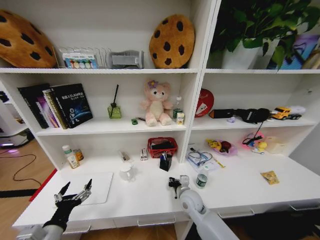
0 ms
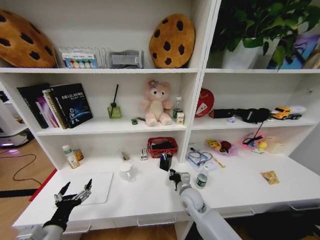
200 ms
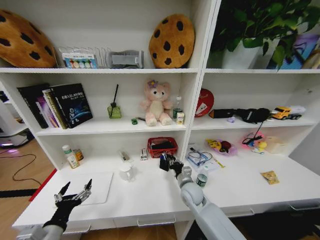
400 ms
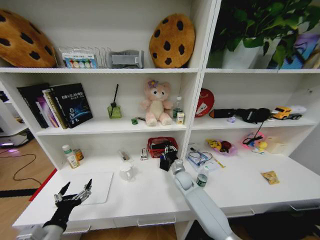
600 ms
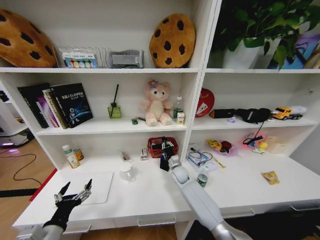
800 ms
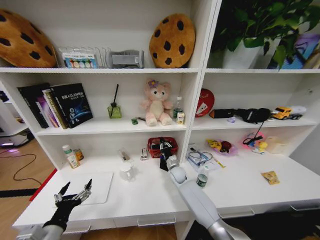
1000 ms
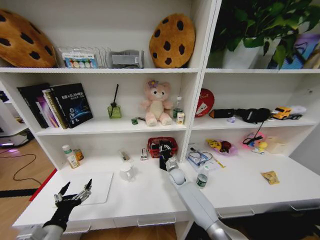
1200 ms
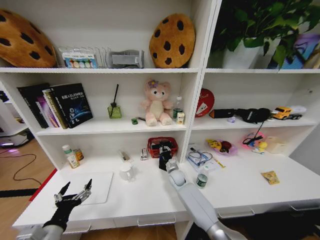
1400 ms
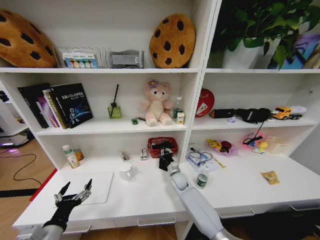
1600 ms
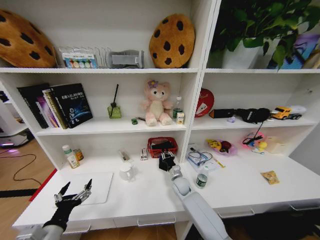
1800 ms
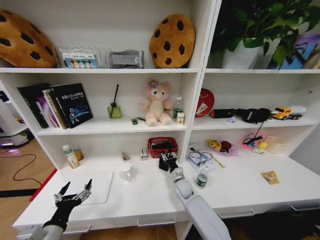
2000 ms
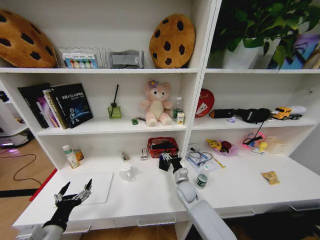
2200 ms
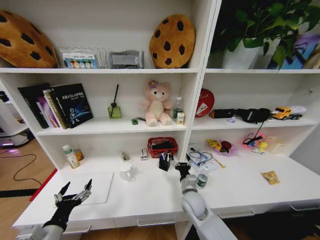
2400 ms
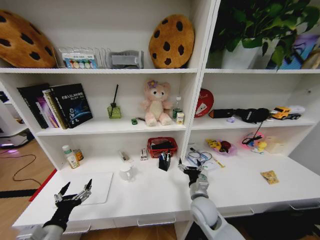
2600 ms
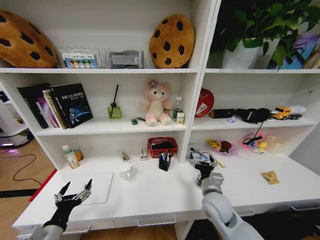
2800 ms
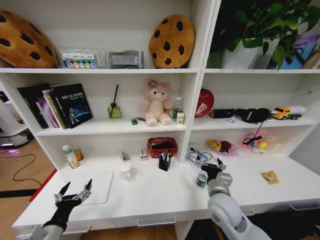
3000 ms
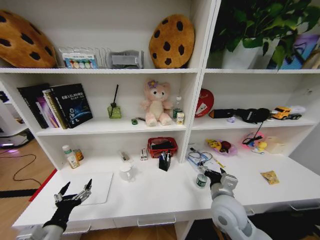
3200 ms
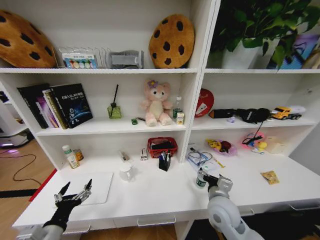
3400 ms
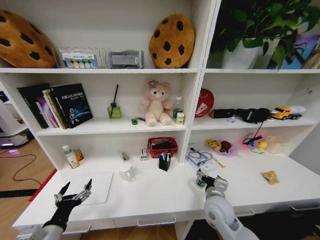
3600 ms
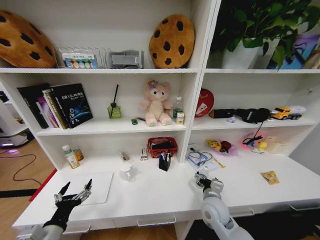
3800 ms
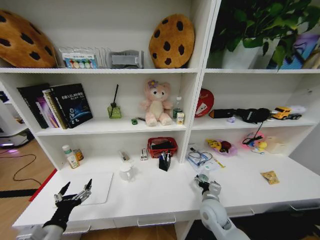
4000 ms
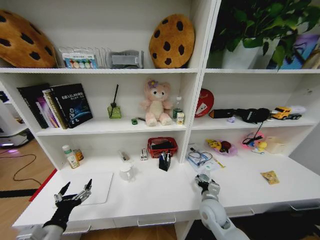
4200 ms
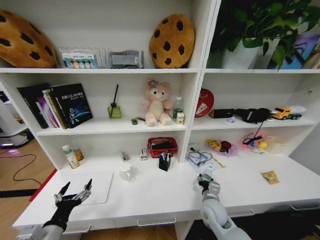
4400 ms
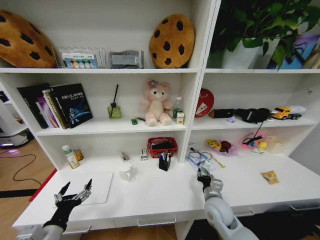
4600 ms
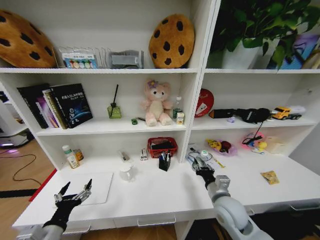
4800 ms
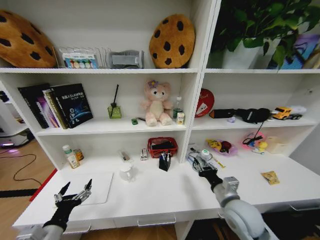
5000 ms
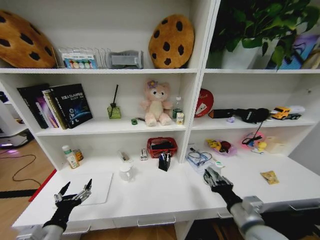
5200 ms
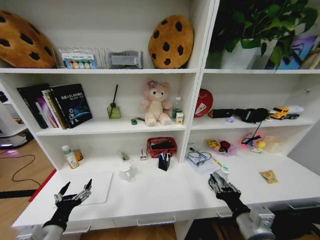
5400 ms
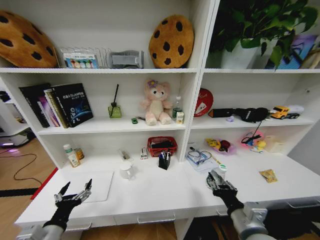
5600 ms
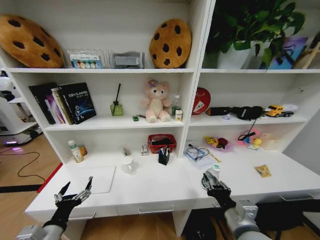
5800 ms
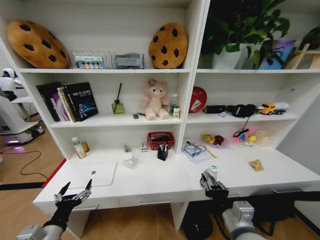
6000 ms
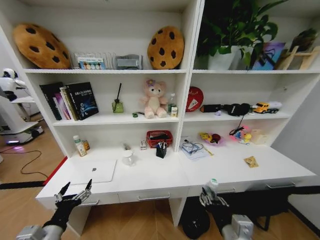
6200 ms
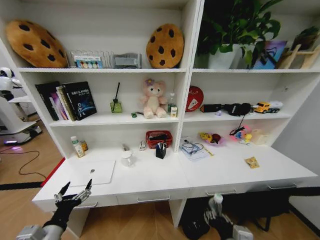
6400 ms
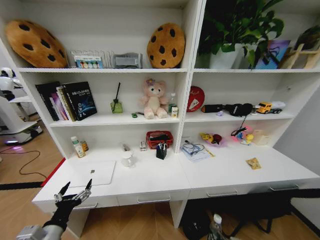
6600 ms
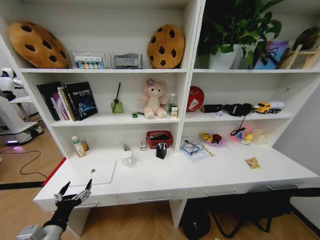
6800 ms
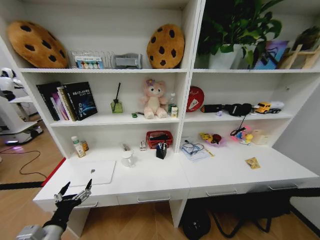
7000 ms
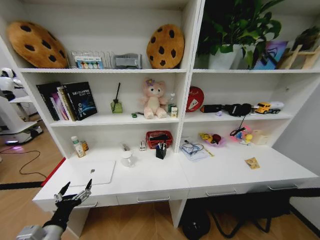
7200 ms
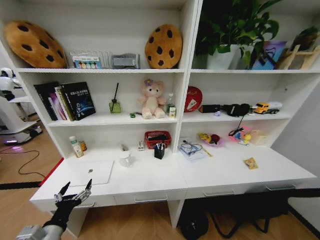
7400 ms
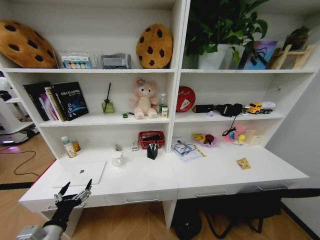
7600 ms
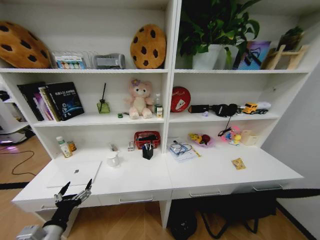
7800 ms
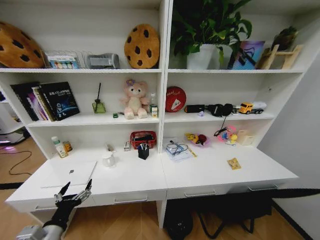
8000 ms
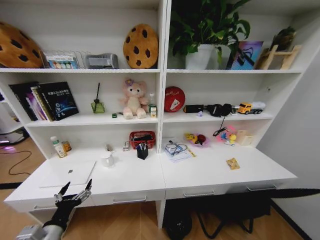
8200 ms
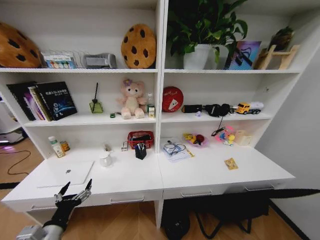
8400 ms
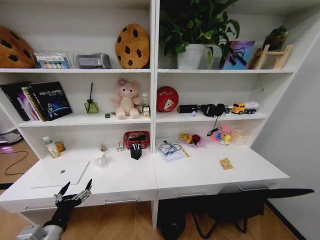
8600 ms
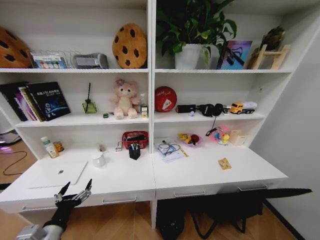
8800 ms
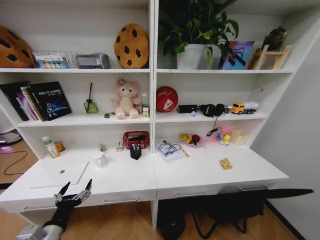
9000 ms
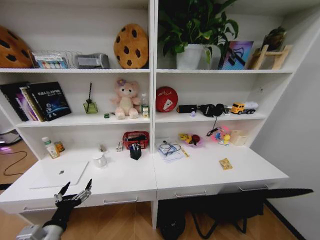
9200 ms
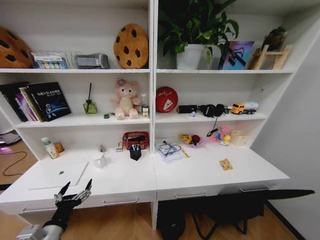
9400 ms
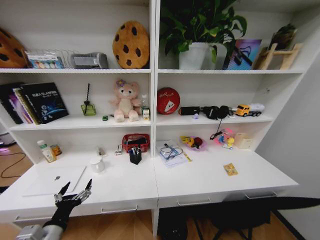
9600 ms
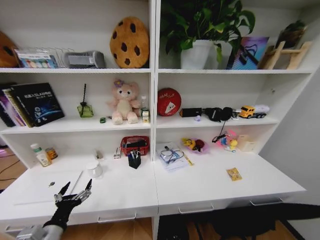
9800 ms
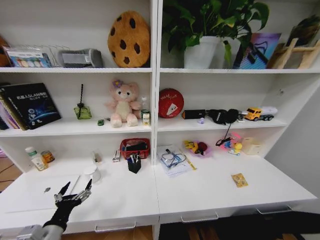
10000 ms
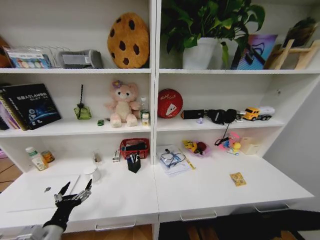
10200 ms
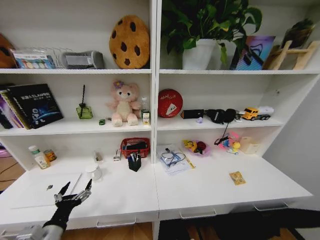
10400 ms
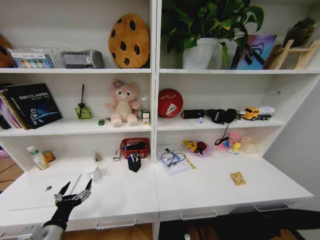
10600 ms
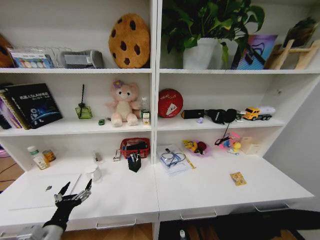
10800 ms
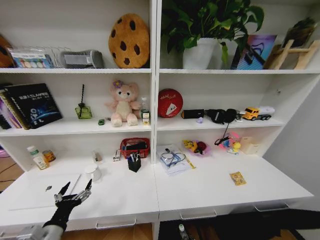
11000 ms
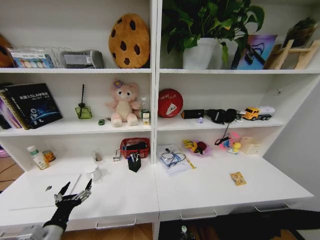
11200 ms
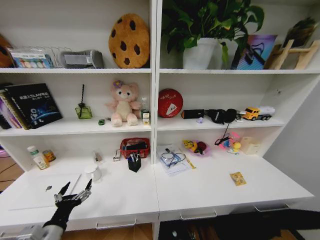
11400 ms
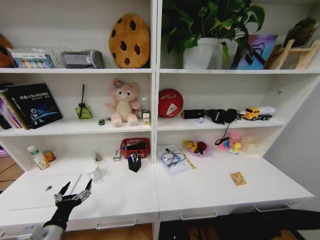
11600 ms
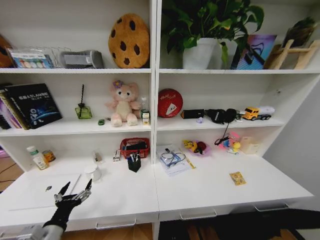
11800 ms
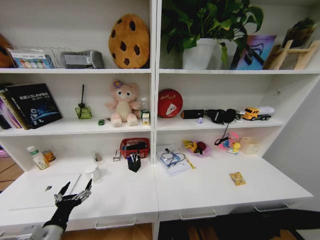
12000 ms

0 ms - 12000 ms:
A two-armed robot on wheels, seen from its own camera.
Task of the whole recording: Organize the objects on the table.
0 ms - 1600 ms: The right gripper is displaced forward and downward by some 15 cm.
1600 ms - 3000 ms: The right gripper is displaced backward, upward and to the right by roughly 25 cm, and opens up.
3000 ms - 4400 ms: The right gripper is displaced downward by some 10 cm, and closes its fingers.
4400 ms - 6000 ms: The right gripper is displaced backward and upward by roughly 20 cm, and closes up.
6000 ms - 7600 ms: The right gripper heads downward and backward, covering about 30 cm.
9000 ms - 10400 ms: The right gripper shifts some 10 cm downward.
10400 ms - 12000 ms: The right gripper opens its fingers.

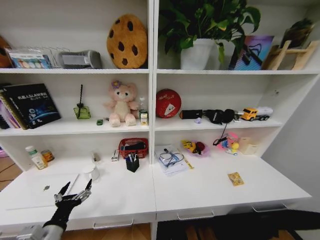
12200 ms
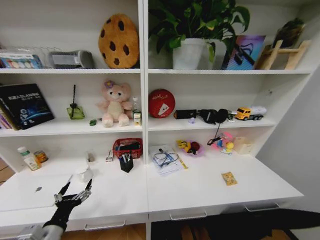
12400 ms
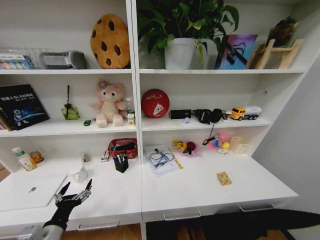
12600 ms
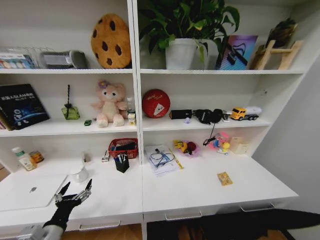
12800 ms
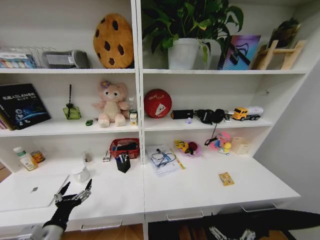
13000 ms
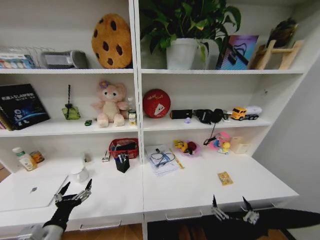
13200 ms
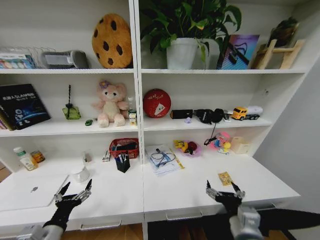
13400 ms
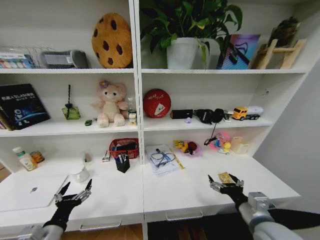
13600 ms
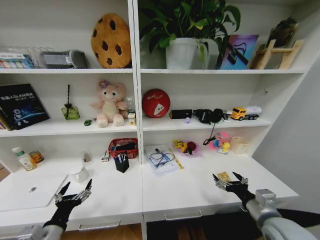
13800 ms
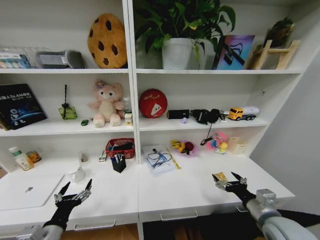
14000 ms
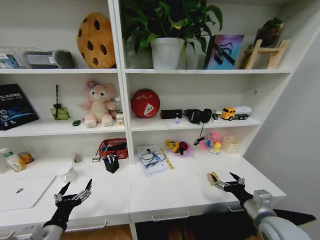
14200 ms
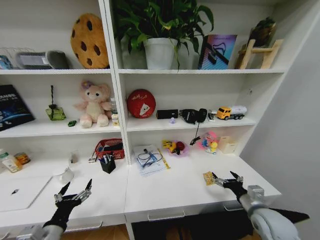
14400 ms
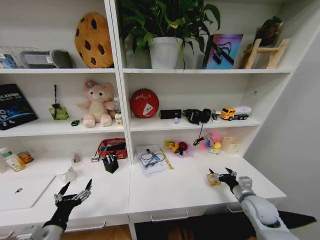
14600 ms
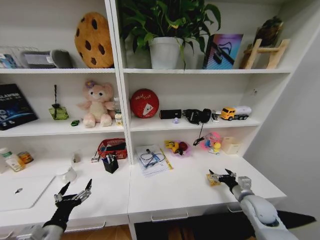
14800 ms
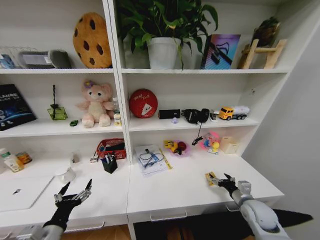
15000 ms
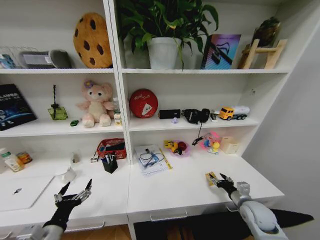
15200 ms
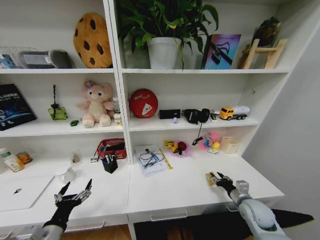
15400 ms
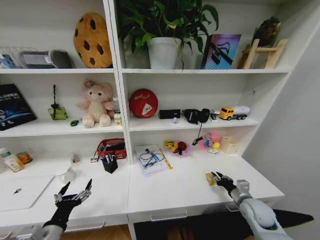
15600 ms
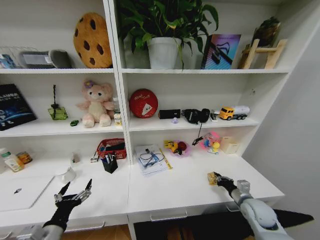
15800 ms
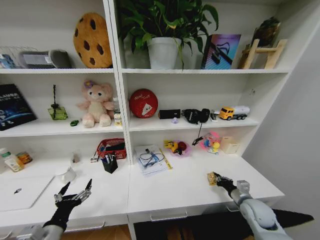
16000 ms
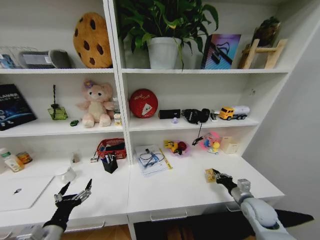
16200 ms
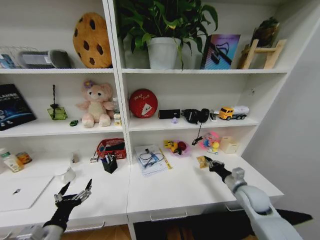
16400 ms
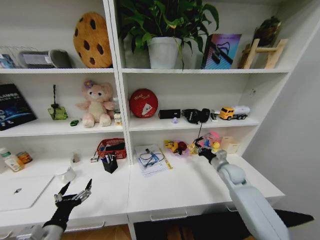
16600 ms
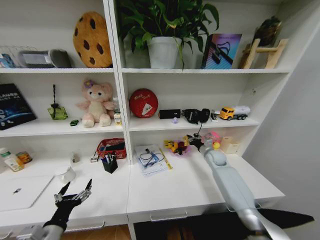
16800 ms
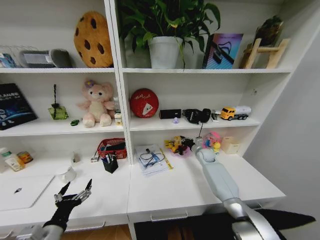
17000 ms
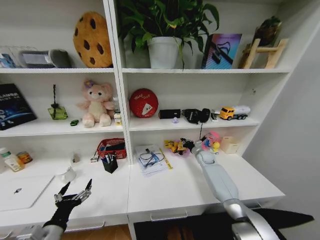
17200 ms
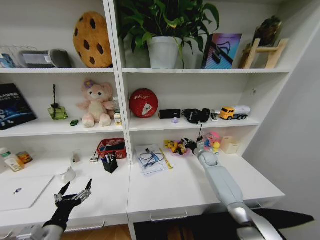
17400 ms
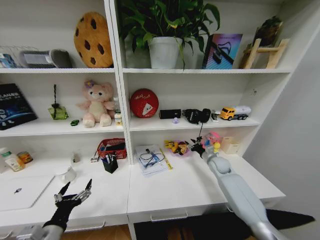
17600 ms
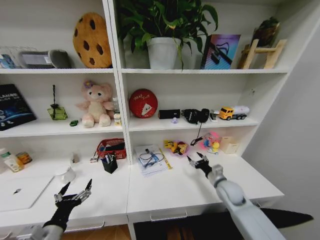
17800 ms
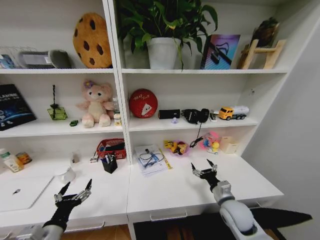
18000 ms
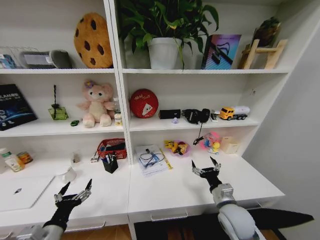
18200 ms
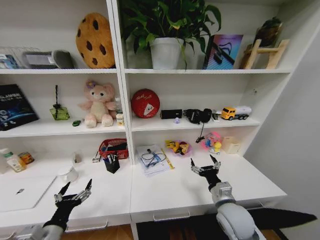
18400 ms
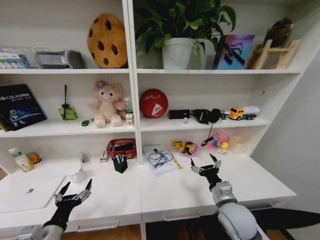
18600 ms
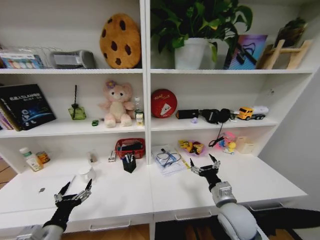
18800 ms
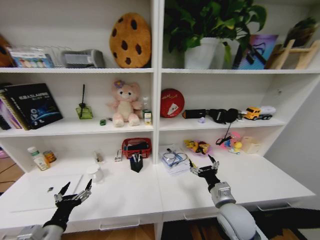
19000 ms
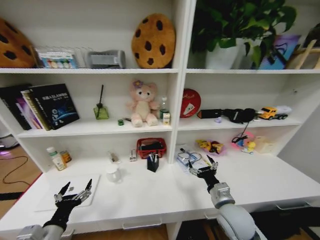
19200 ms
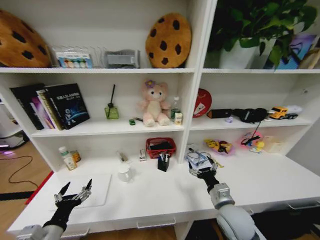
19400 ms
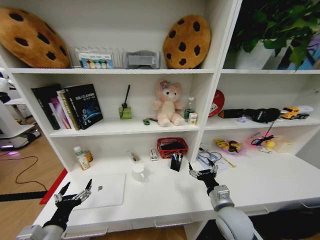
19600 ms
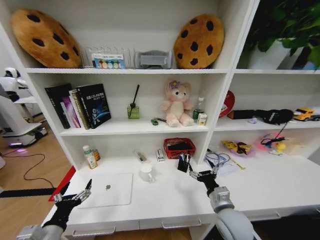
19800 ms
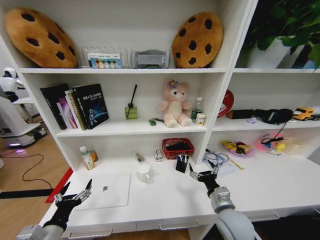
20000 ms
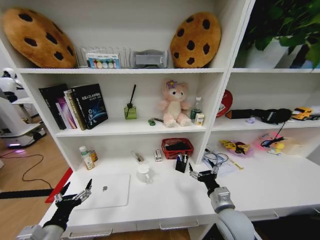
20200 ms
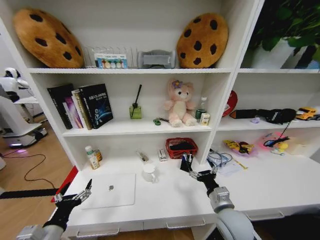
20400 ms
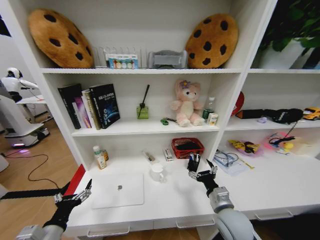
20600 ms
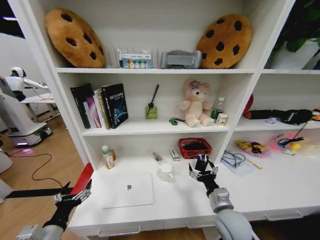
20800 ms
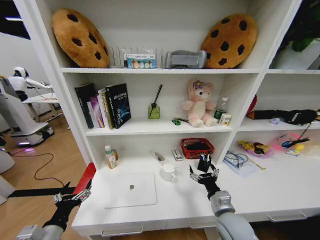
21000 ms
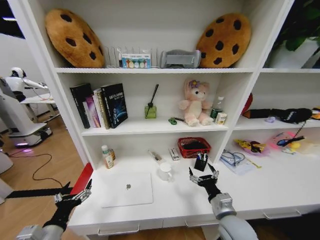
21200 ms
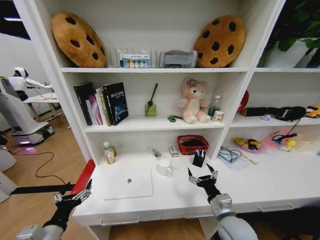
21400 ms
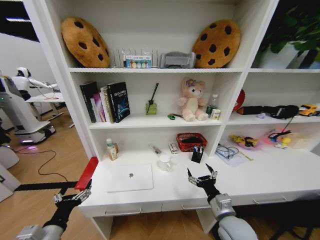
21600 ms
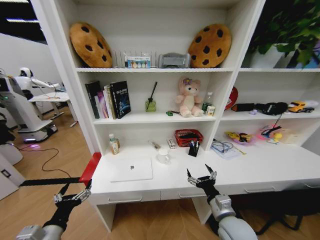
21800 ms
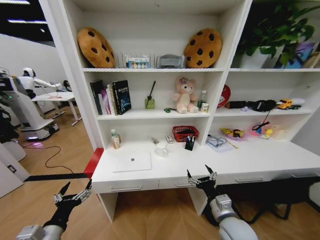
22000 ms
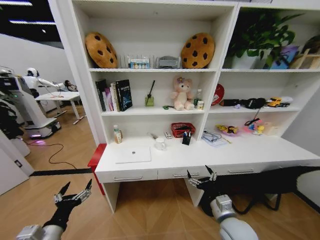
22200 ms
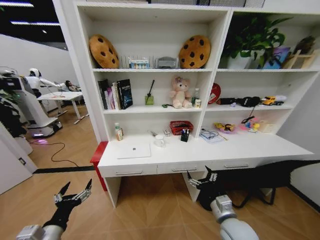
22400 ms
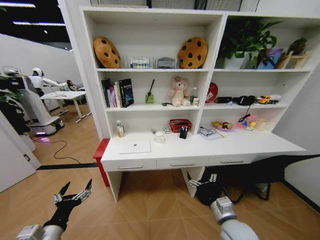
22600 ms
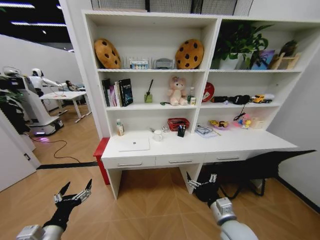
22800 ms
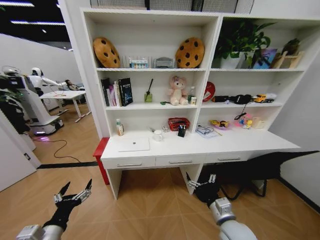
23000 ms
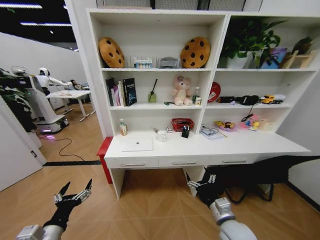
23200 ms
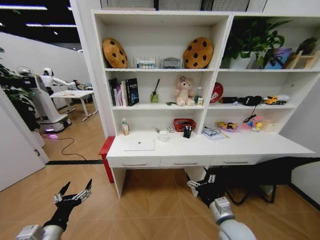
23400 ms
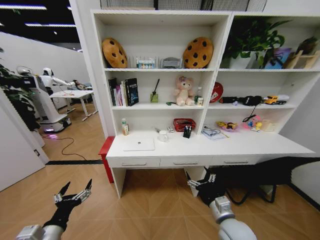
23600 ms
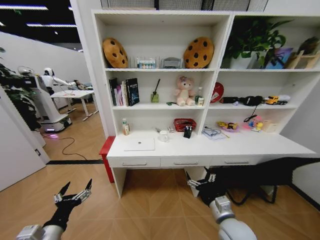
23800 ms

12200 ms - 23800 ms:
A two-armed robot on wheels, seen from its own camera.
Task of the whole recording: Organize the objects on the table.
12200 ms - 13600 ms: The right gripper heads upward and forward, covering roughly 40 cm.
13600 ms - 15000 ms: The right gripper shifts some 20 cm downward, forward and to the right.
15000 ms - 16600 ms: The right gripper moves forward, roughly 15 cm, and closes up.
16600 ms - 18000 ms: The right gripper goes roughly 15 cm backward and to the left, and opens.
18000 ms - 19400 ms: The right gripper moves roughly 10 cm.
